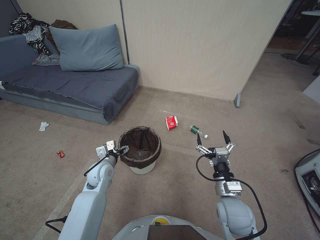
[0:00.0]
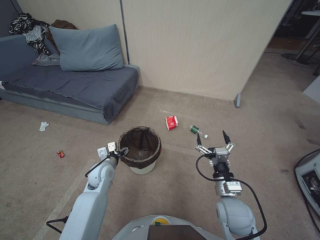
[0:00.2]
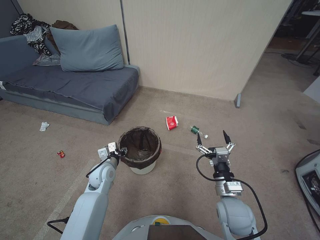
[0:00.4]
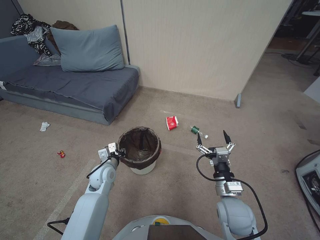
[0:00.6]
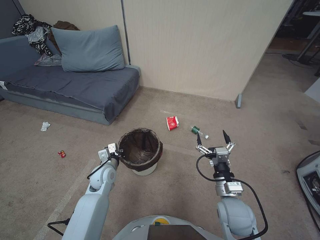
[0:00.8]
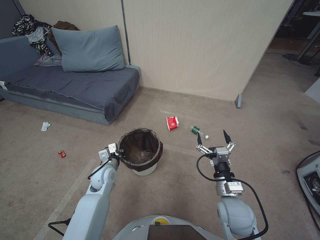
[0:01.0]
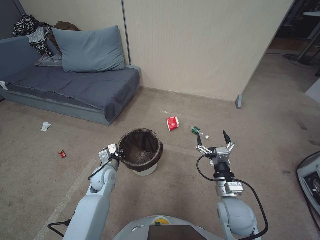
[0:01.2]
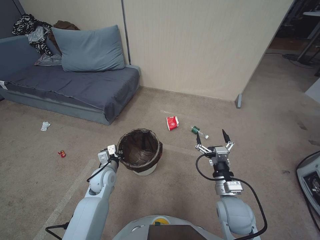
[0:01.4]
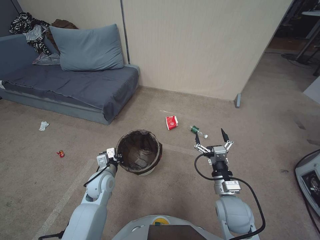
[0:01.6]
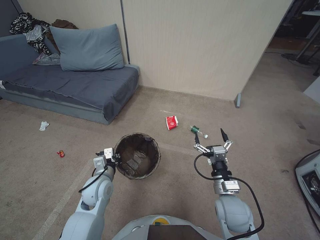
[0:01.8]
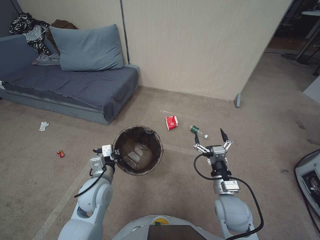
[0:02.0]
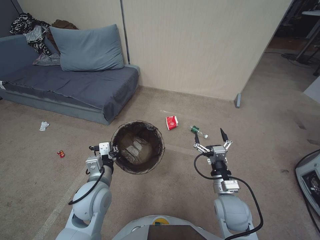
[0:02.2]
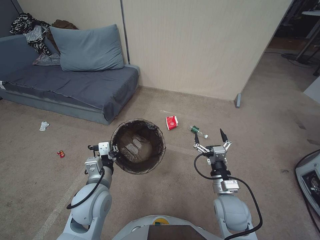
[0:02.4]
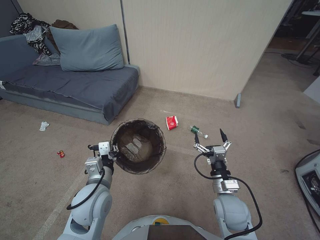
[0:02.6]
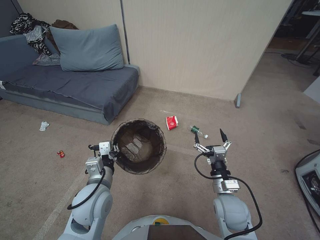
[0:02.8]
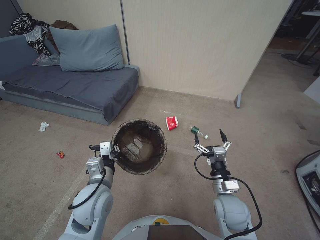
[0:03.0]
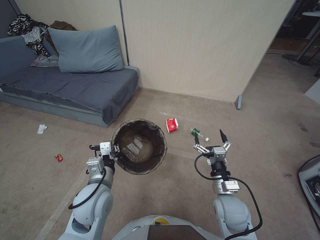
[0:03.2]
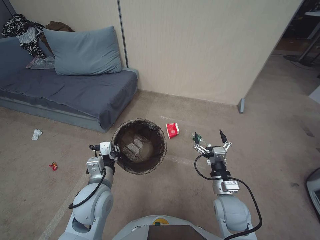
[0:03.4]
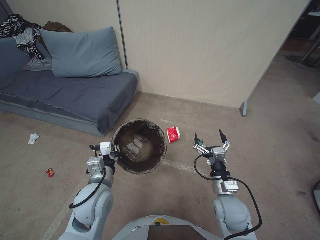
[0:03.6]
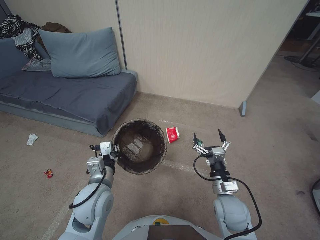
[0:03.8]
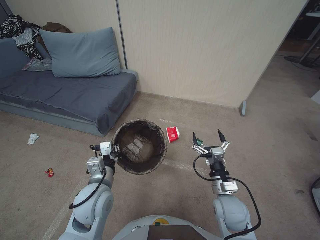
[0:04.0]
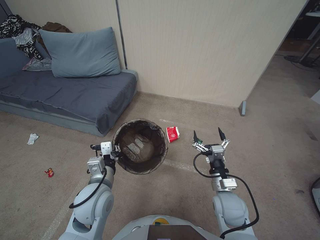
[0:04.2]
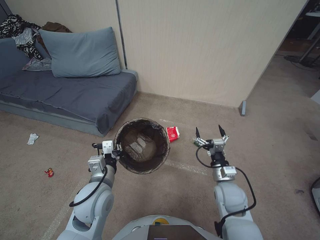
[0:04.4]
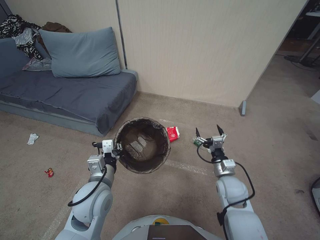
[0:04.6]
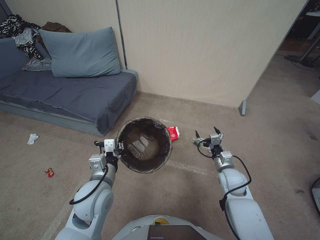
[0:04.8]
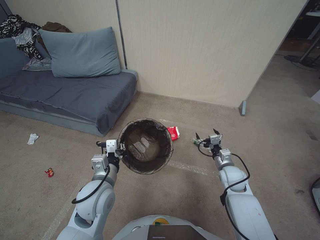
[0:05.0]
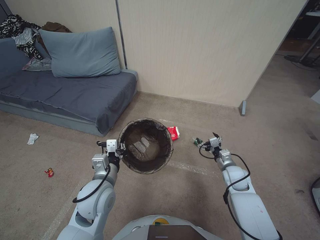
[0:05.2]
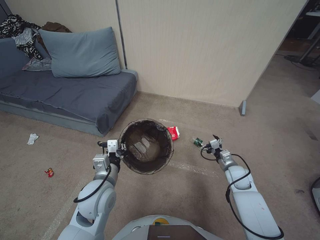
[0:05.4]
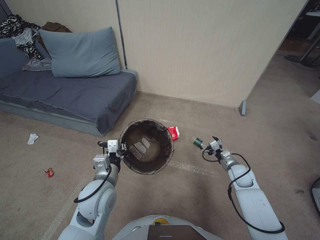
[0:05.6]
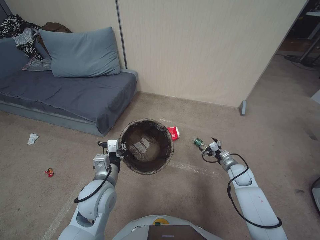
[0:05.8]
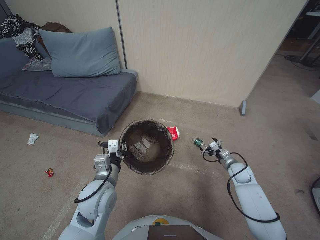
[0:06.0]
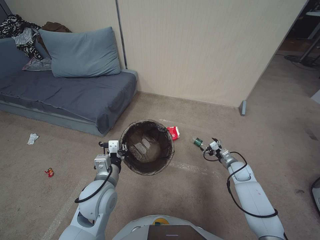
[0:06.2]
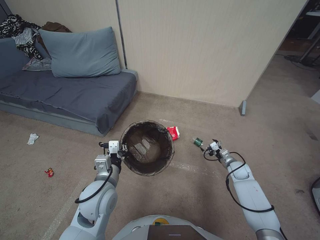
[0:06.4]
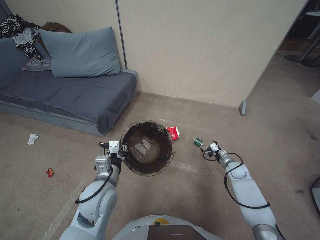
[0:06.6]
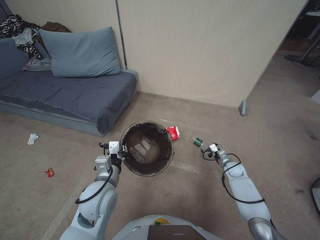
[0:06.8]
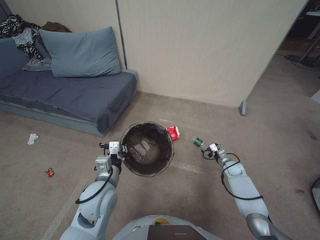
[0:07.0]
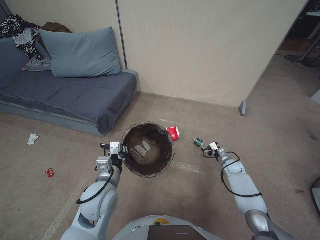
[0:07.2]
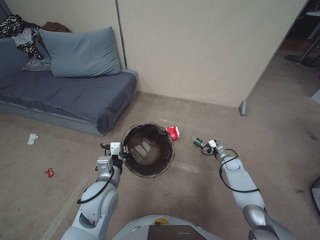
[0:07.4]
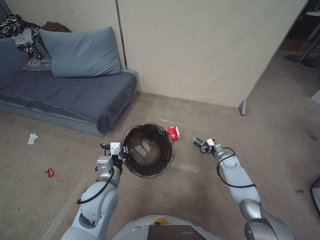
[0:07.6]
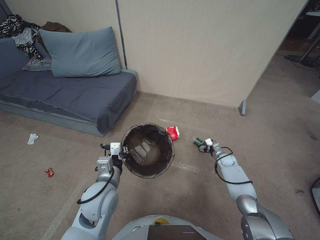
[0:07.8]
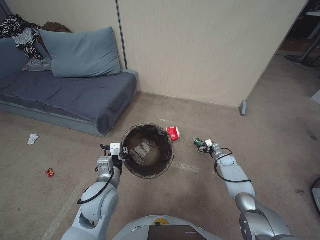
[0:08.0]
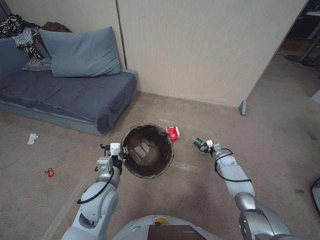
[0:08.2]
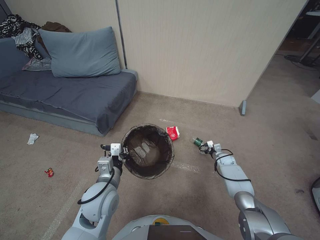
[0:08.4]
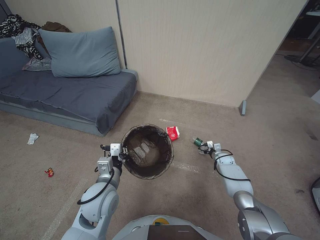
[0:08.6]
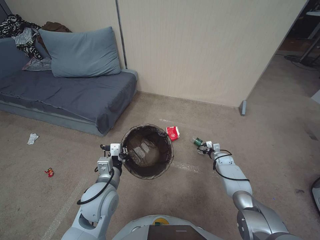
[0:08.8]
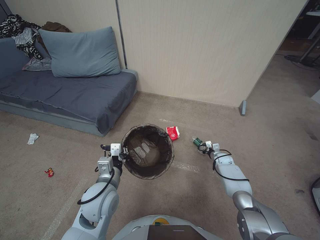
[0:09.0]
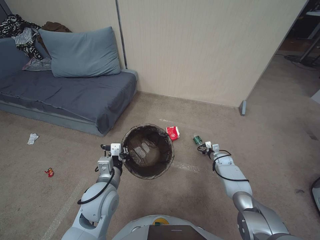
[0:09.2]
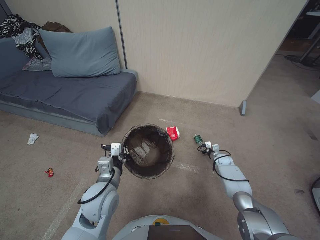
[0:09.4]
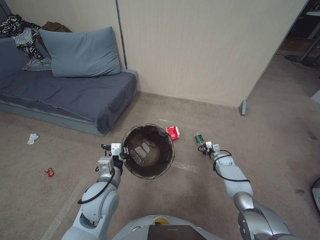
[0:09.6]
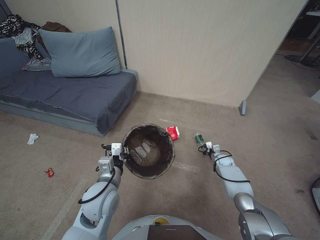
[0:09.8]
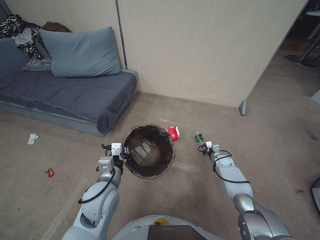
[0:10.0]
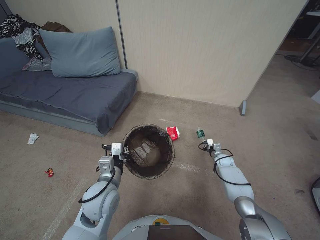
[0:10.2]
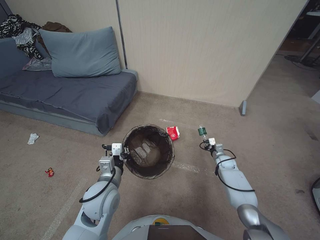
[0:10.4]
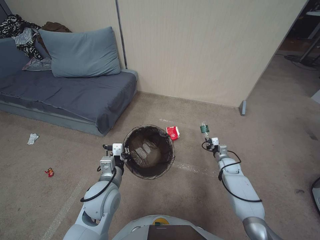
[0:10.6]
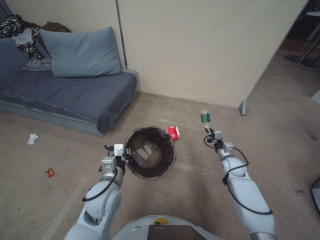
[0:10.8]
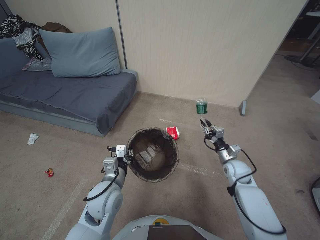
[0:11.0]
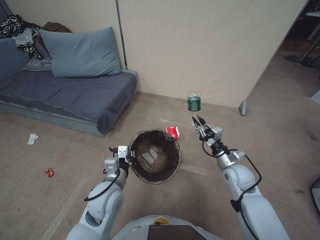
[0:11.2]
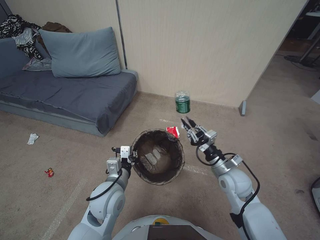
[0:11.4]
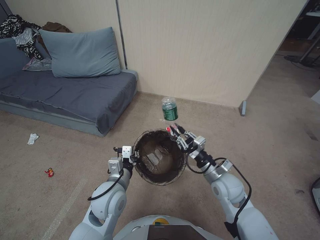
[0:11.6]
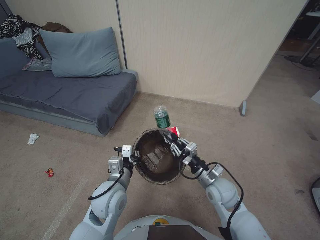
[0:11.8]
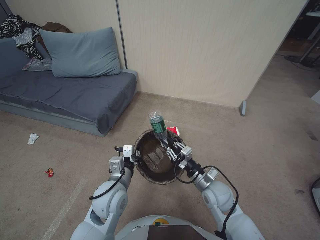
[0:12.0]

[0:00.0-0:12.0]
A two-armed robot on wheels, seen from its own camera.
Task of the whole recording: Pick up the trash bin, then pick up the garbage from the floor and place it into the trash bin.
0:00.0 to 0:01.6: The left gripper closes its fingers.
0:01.6 to 0:03.0: The left gripper shifts some 15 cm upward and backward.
0:03.0 to 0:04.4: There are only small adjustments of the grippers.
0:04.4 to 0:06.0: The right gripper is displaced to the right, forward and downward by about 20 cm.
0:06.0 to 0:07.6: The right gripper moves forward and downward, roughly 10 cm.
0:09.0 to 0:10.4: The right gripper closes its fingers.
0:10.4 to 0:12.0: The right gripper shifts about 30 cm backward, to the left and upward.

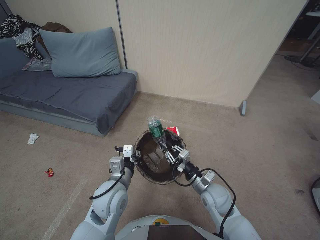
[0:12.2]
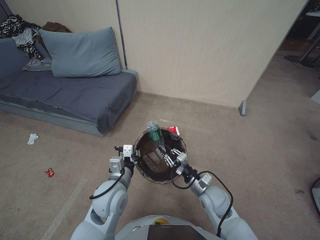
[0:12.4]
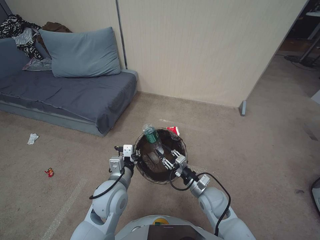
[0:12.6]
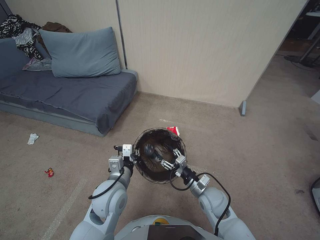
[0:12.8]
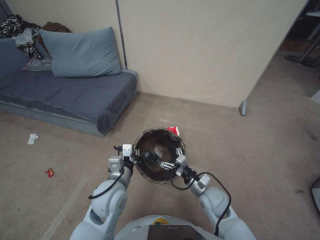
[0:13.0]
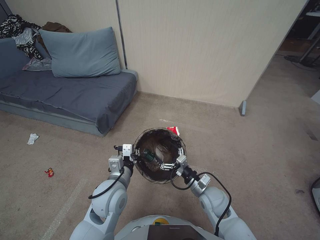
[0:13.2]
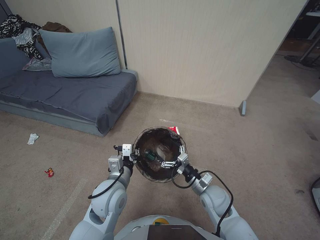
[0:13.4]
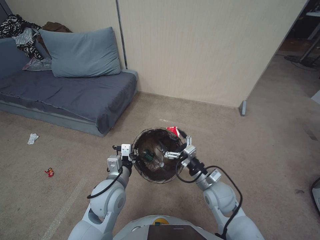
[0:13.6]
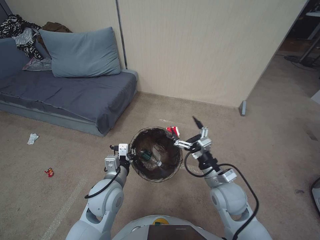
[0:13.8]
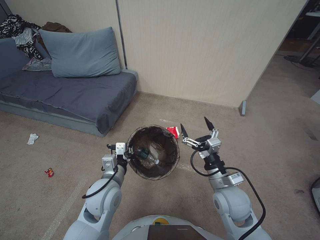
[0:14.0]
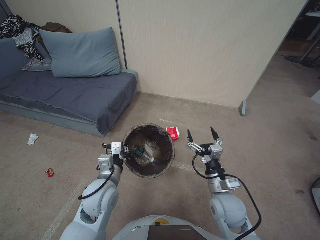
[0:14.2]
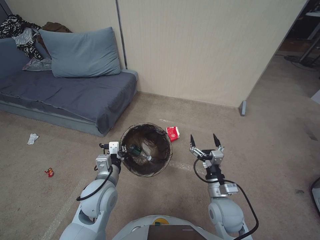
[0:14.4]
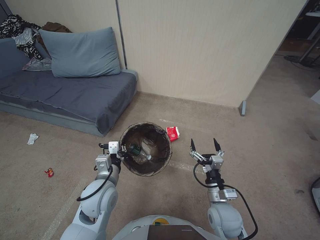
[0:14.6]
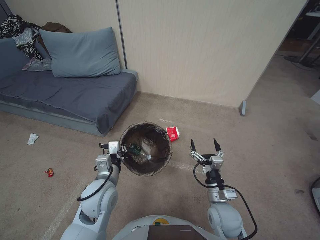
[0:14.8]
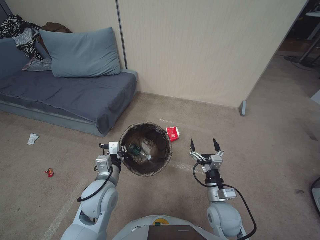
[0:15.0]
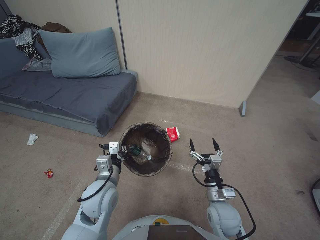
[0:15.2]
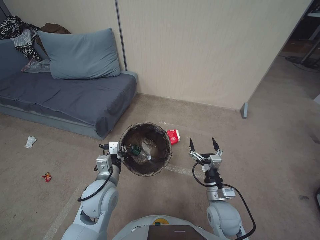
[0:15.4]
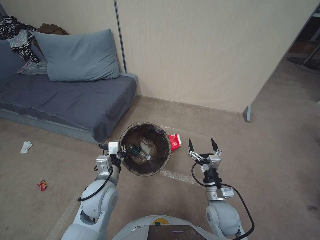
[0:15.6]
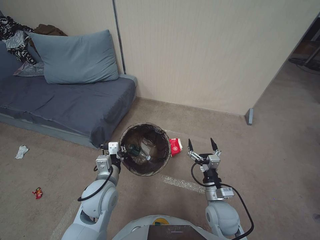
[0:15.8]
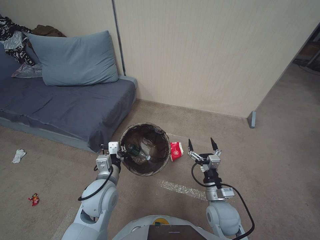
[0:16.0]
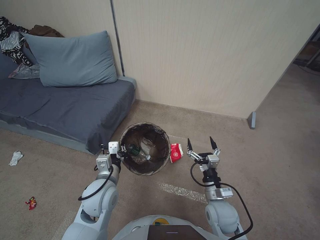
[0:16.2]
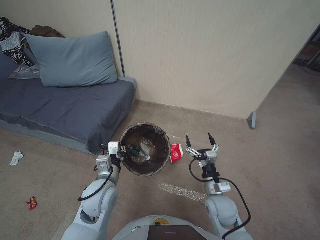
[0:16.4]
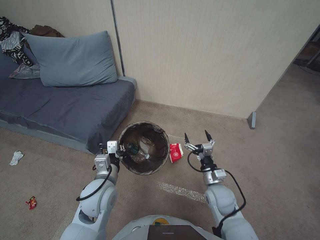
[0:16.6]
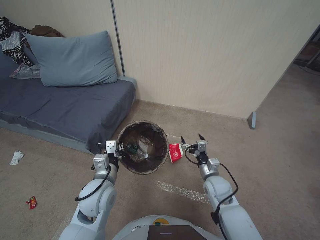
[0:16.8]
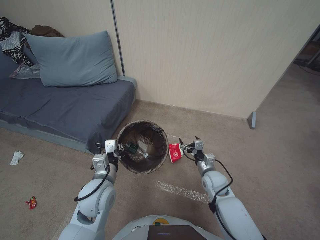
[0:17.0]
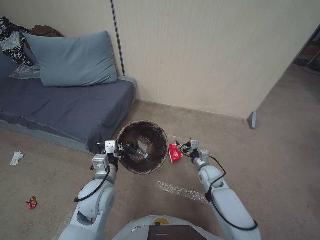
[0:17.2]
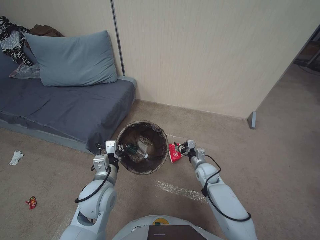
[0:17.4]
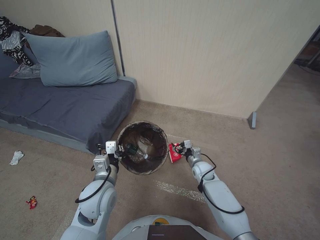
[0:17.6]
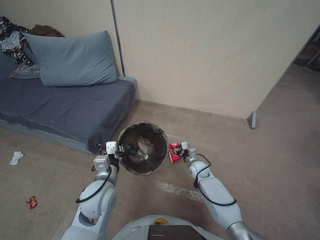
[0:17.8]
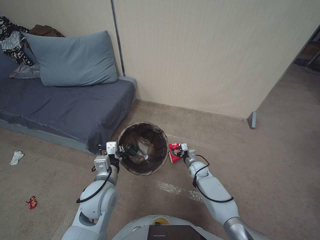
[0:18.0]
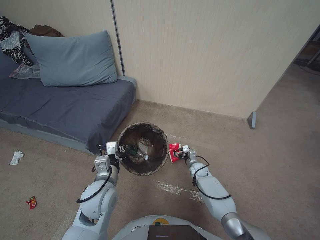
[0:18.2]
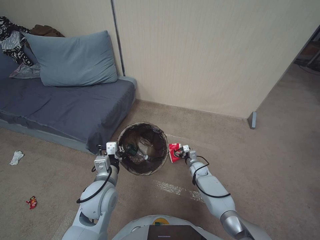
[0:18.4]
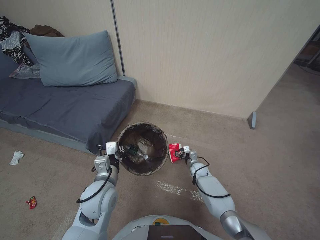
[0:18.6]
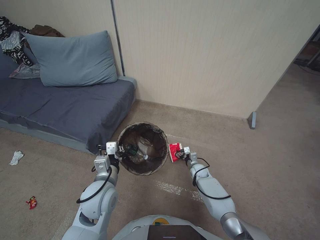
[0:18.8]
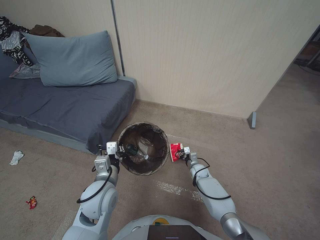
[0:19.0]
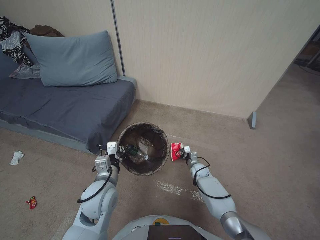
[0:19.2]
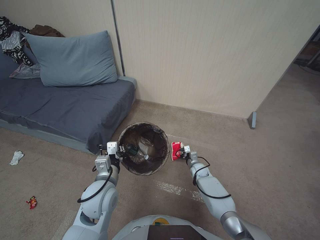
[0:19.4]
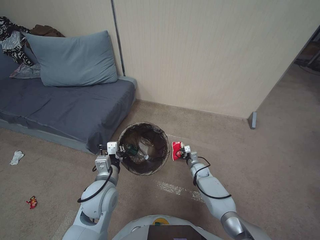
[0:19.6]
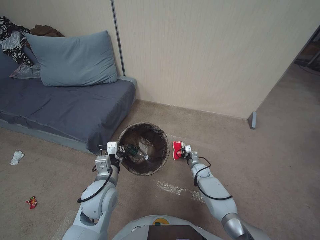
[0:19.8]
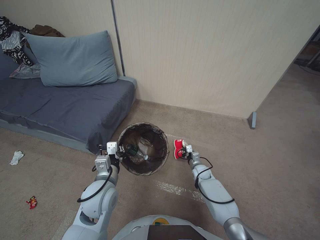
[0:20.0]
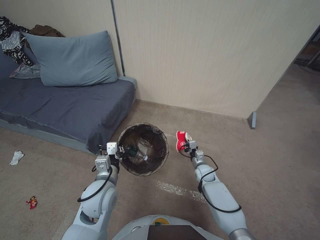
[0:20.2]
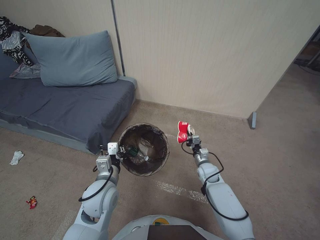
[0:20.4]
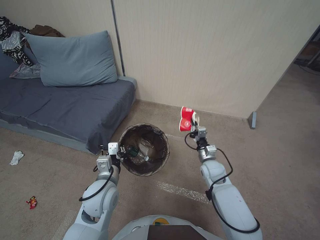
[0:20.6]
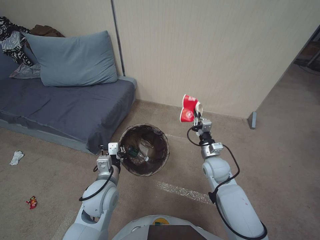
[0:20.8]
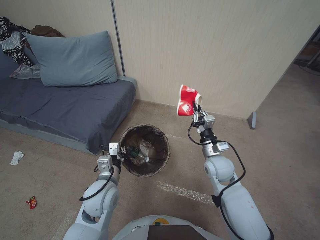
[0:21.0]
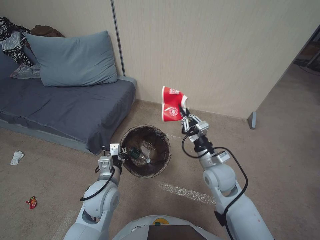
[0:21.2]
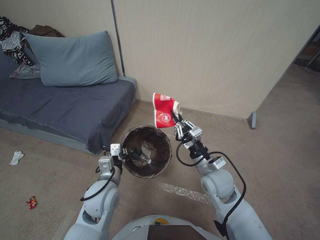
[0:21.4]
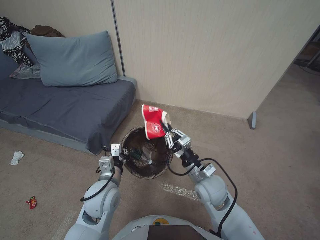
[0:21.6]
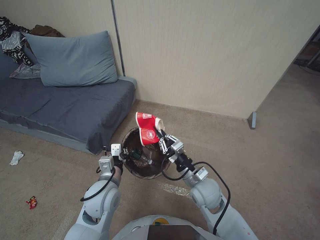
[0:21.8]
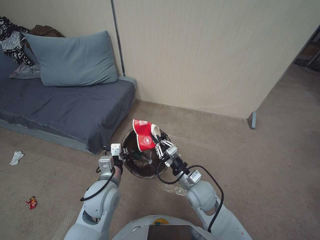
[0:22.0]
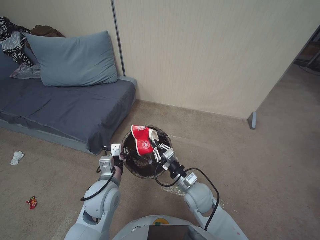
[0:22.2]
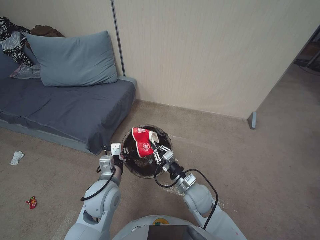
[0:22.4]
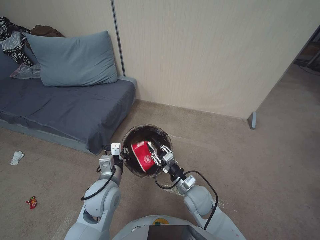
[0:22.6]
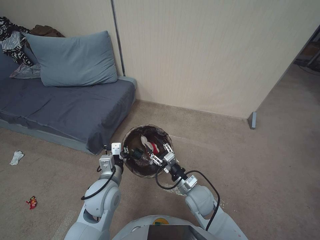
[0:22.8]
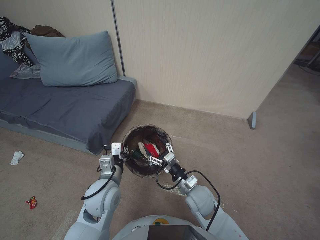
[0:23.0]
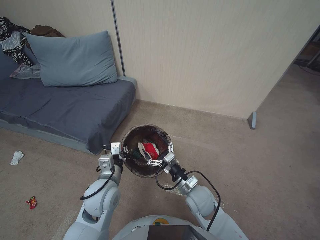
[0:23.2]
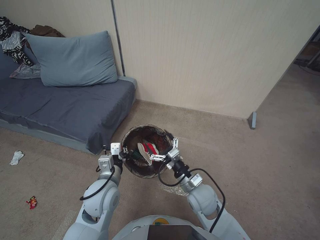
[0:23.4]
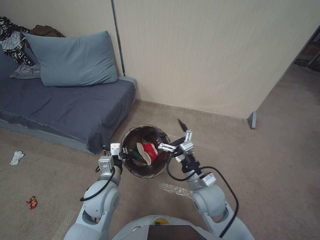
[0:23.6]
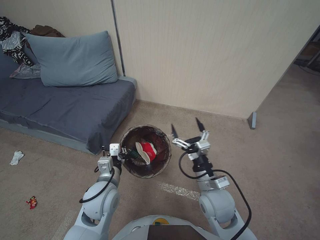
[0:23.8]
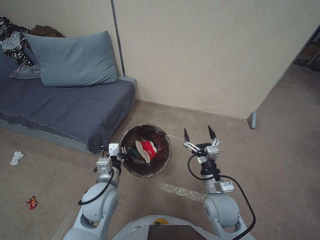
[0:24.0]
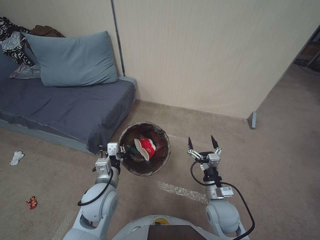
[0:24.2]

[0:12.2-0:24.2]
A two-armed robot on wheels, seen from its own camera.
Task of the whole recording: Pick up the trash bin, then pick up the garbage from the floor and place it into the trash bin.
0:12.2 to 0:13.8: The right gripper opens up.
0:13.8 to 0:15.2: The right gripper travels downward by about 10 cm.
0:15.2 to 0:16.6: The right gripper moves roughly 5 cm.
0:16.6 to 0:18.2: The right gripper is displaced forward and downward by some 20 cm.
0:18.2 to 0:19.8: The right gripper closes up.
0:19.8 to 0:21.2: The right gripper shifts about 30 cm upward and backward.
0:21.2 to 0:22.6: The right gripper moves downward, to the left and backward, some 15 cm.
0:22.6 to 0:24.2: The right gripper travels to the right by roughly 5 cm, reaches roughly 10 cm upward, then returns, and opens up.
